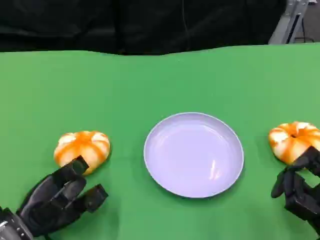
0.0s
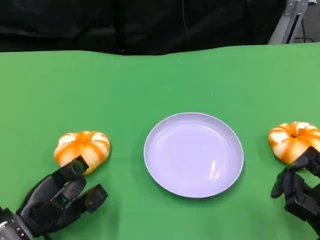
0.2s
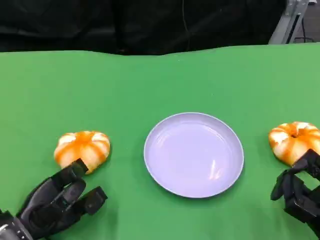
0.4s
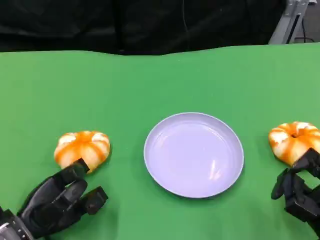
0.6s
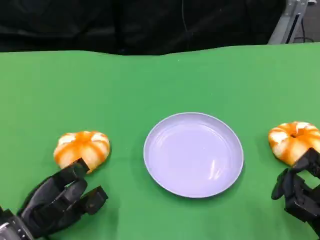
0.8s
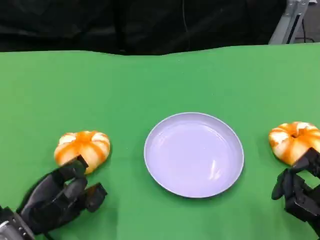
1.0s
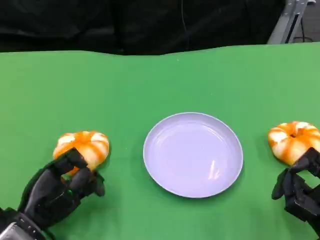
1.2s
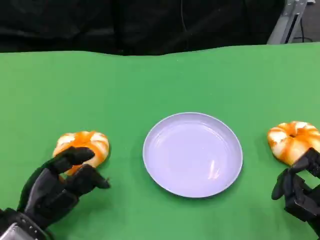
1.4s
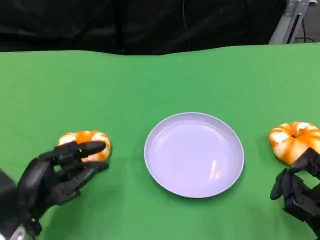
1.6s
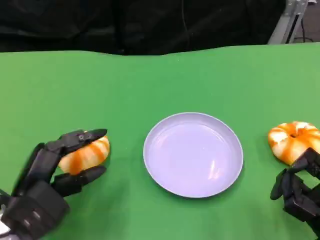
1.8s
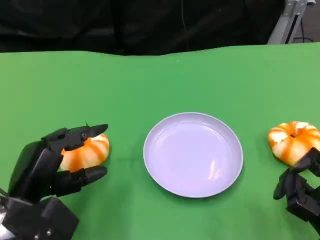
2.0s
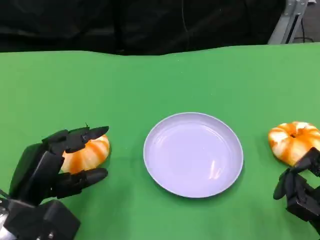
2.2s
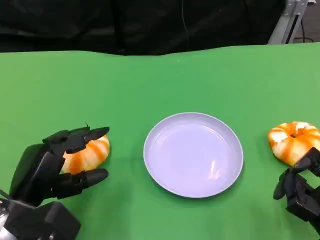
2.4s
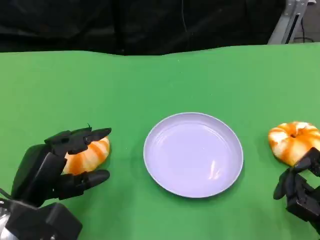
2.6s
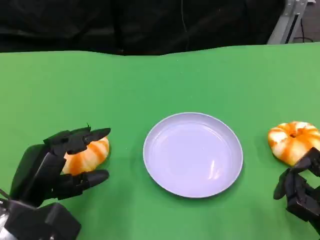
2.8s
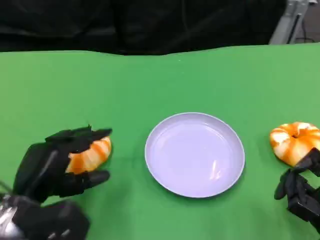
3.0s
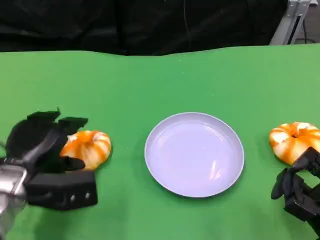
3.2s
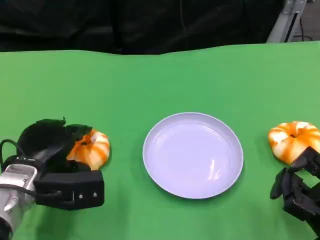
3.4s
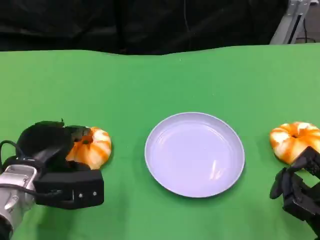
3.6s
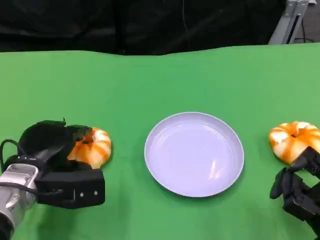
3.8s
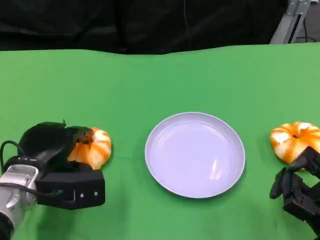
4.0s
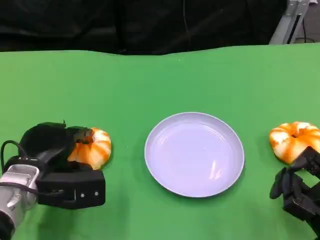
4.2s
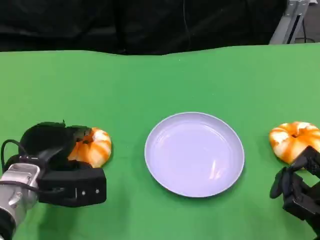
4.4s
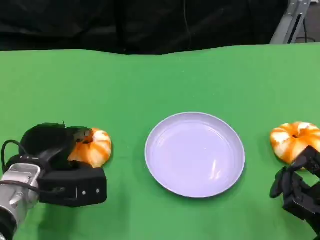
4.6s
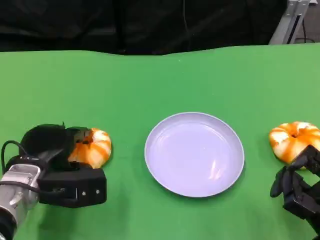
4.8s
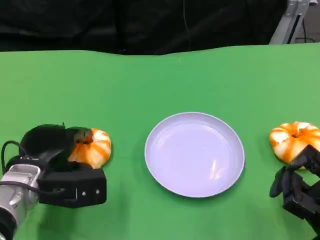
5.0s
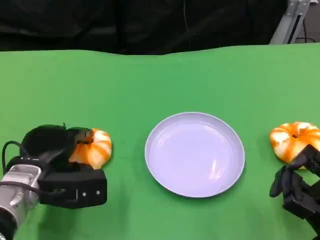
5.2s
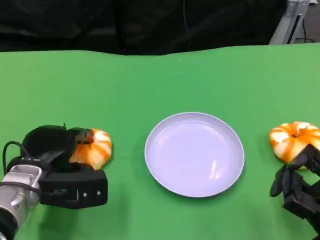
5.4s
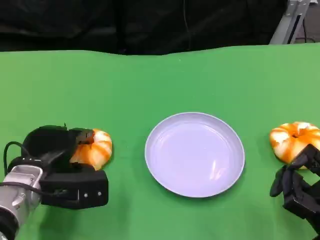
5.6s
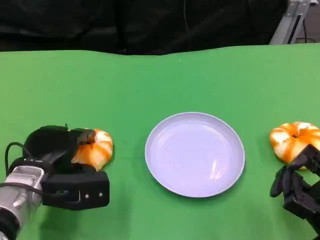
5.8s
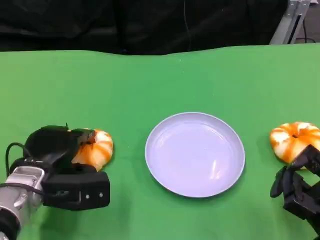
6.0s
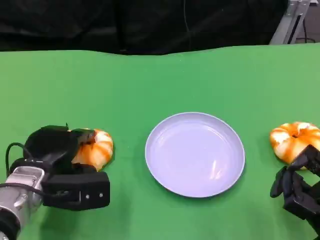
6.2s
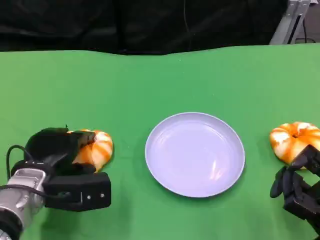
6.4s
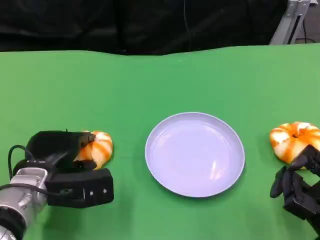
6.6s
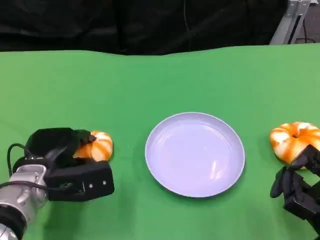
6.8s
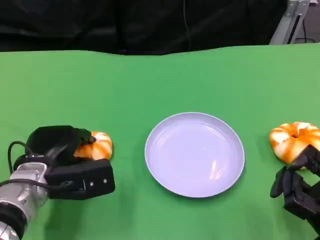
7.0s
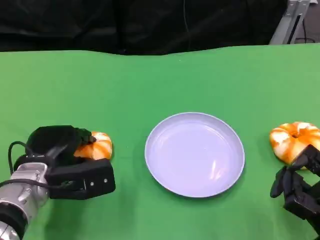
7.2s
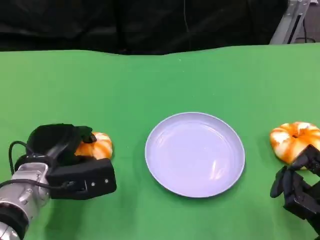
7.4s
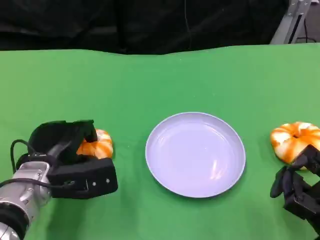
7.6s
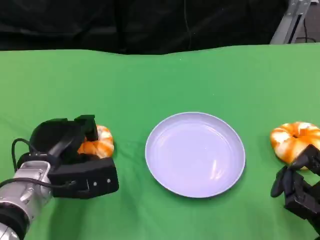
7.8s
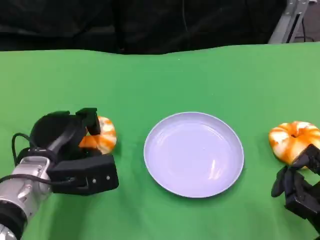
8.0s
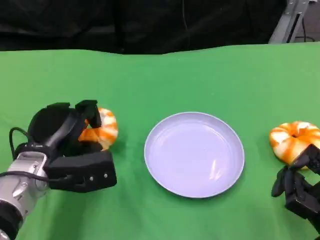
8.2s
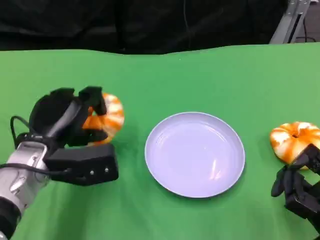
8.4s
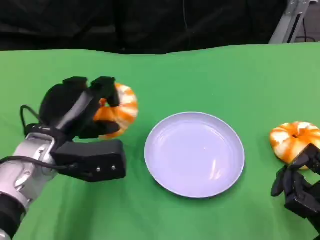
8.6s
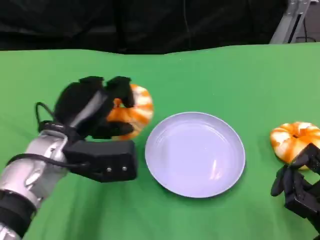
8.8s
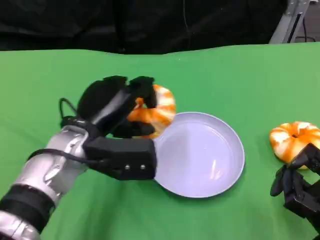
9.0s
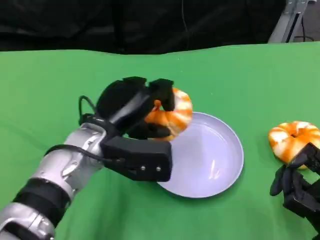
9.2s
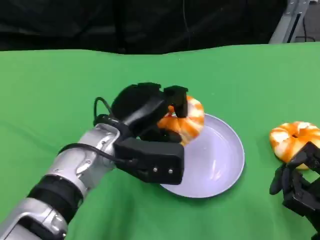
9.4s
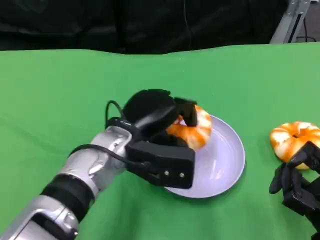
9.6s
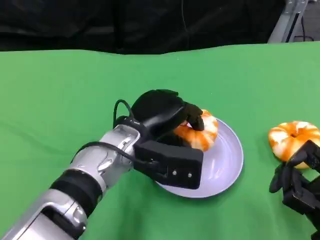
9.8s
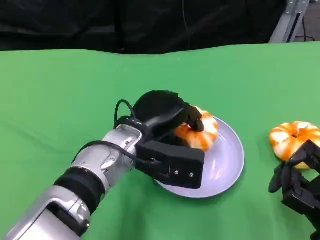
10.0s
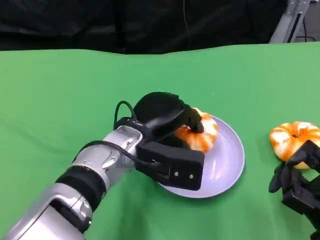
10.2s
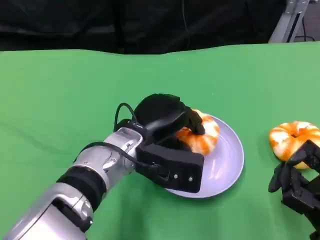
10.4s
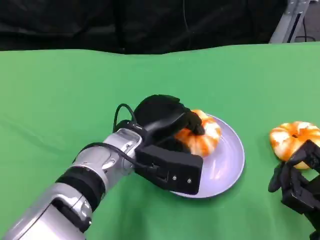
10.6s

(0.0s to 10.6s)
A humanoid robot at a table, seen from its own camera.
Task of the whole recording: Grasp the bread from the table and place it into the plate.
3.0s - 4.6s: The left hand heads forward, covering roughly 5 cm.
4.6s - 6.0s: Both hands stay about where they are.
6.0s - 7.6s: The hands move only a little.
7.6s - 9.0s: The left hand heads upward and to the right, covering some 10 cm.
9.0s - 10.6s: The left hand heads to the right, covering some 5 cm.

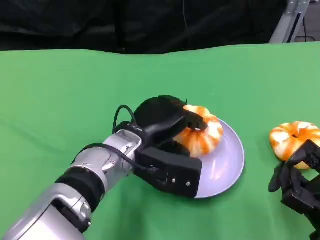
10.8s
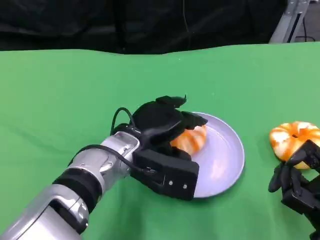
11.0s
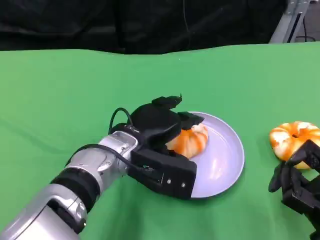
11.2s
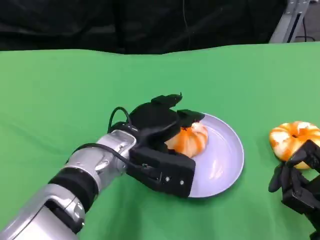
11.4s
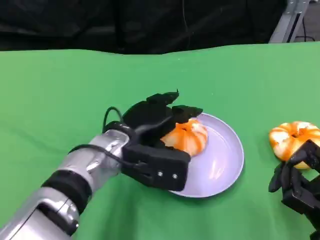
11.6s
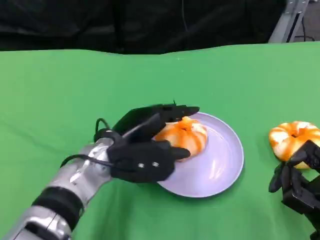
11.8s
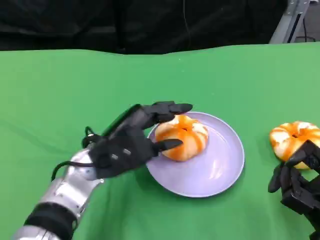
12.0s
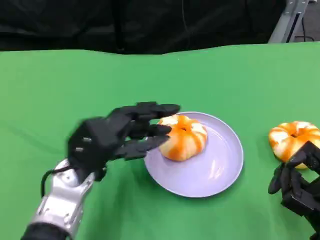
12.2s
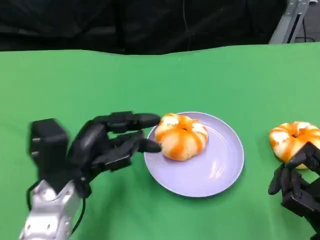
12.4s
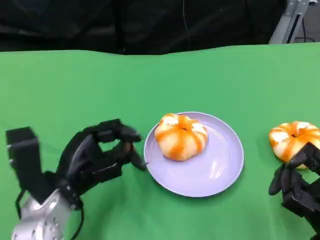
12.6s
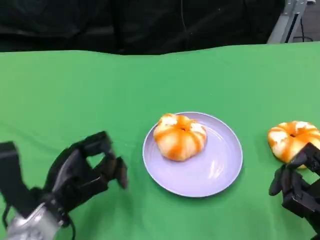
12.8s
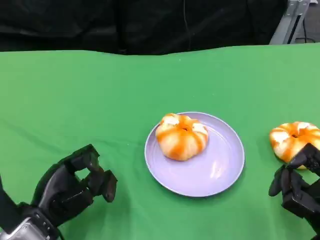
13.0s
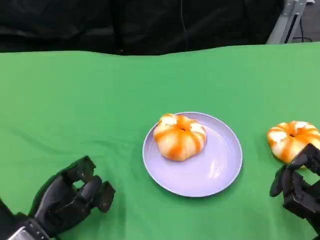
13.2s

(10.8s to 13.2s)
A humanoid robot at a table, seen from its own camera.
Task of the whole recording: Grasp the bread from the table and place it into the plate.
10.8s - 12.0s: The left hand is displaced to the left by some 5 cm.
12.0s - 13.2s: The left hand goes some 15 cm to the left, downward and backward.
